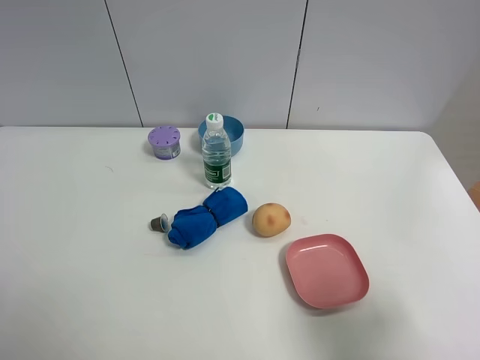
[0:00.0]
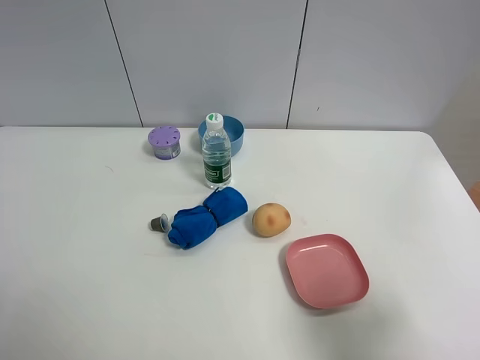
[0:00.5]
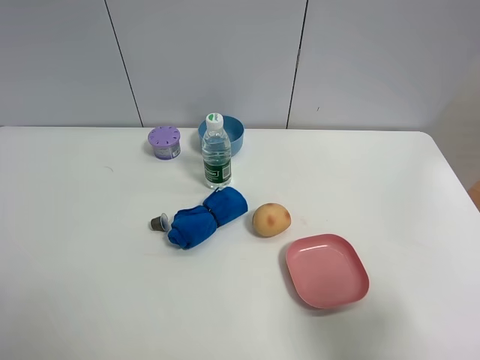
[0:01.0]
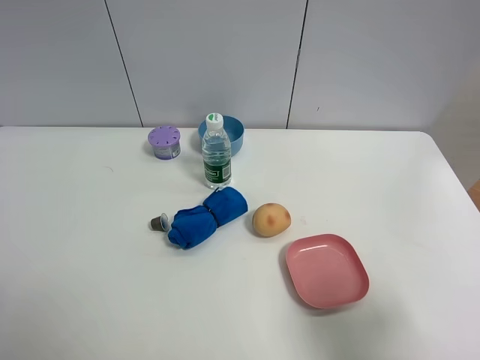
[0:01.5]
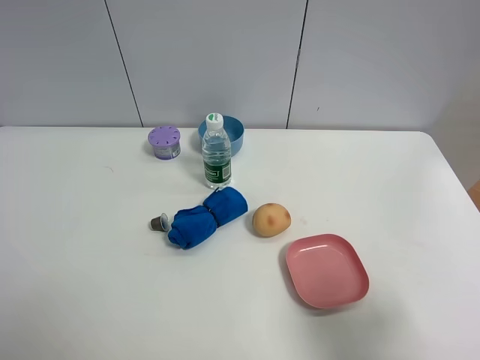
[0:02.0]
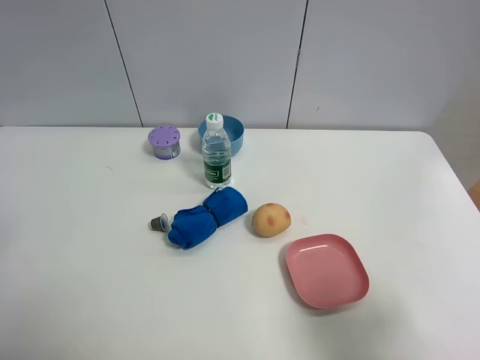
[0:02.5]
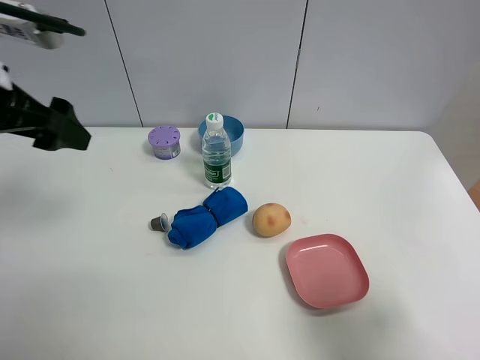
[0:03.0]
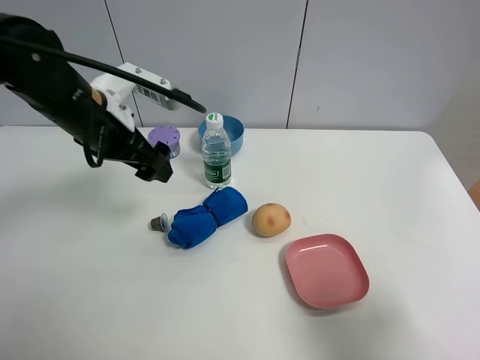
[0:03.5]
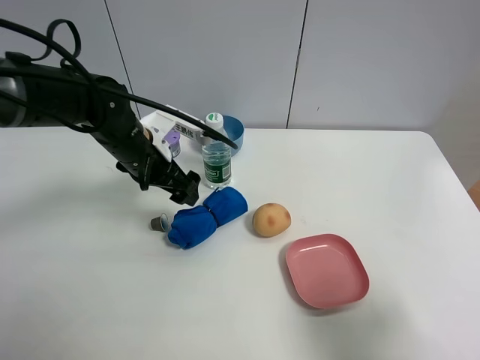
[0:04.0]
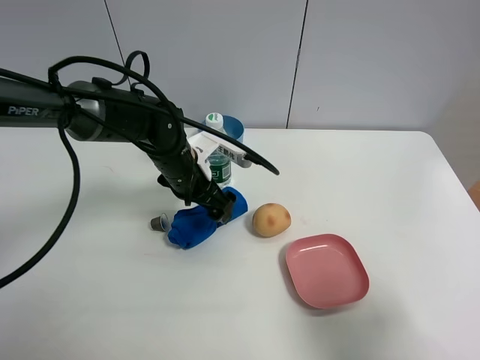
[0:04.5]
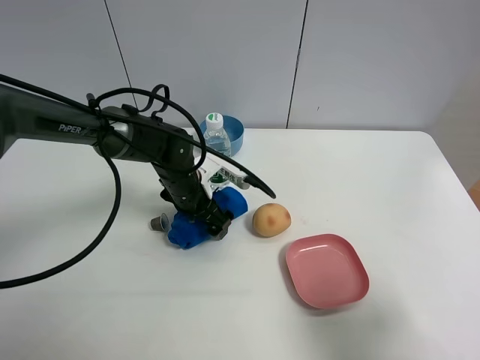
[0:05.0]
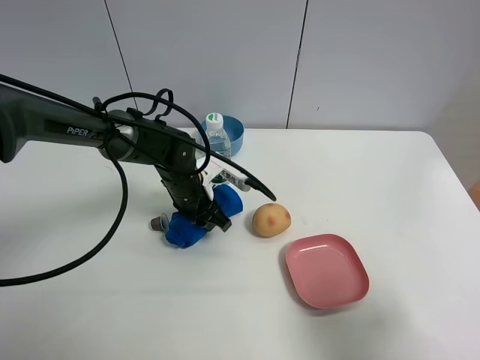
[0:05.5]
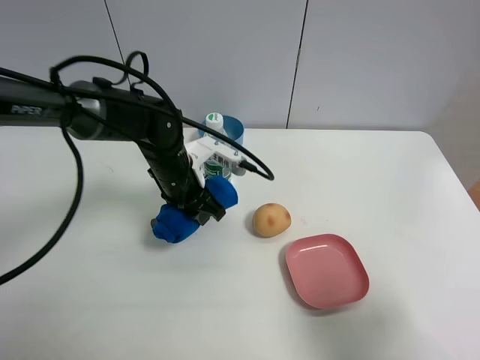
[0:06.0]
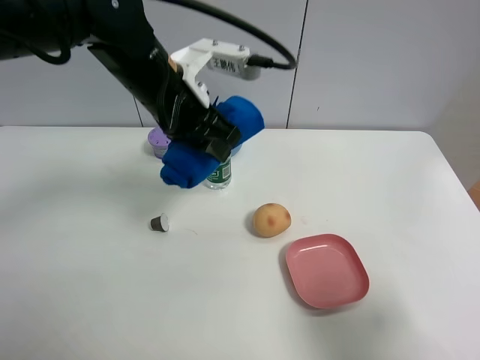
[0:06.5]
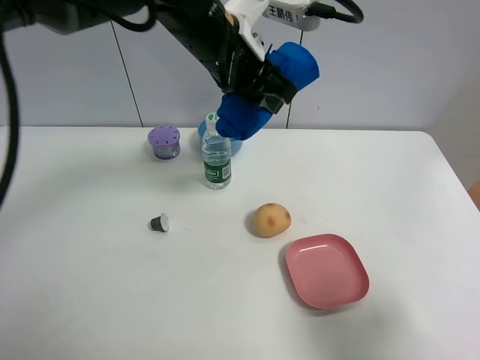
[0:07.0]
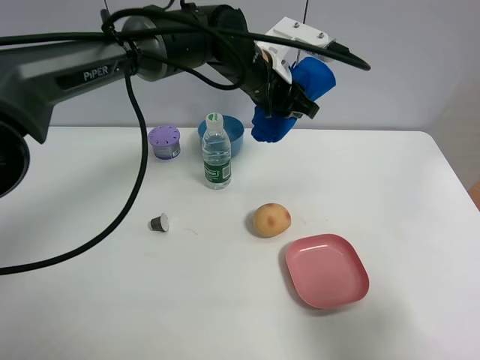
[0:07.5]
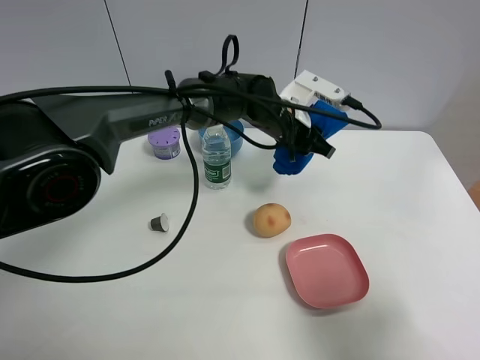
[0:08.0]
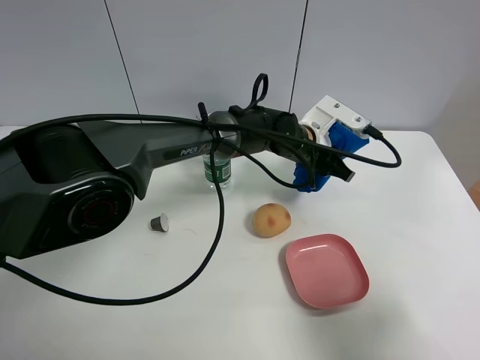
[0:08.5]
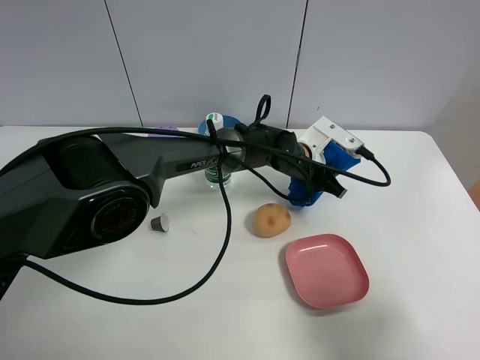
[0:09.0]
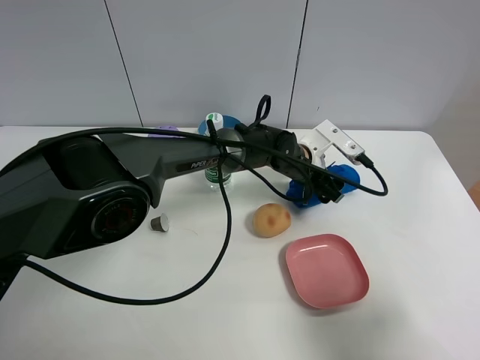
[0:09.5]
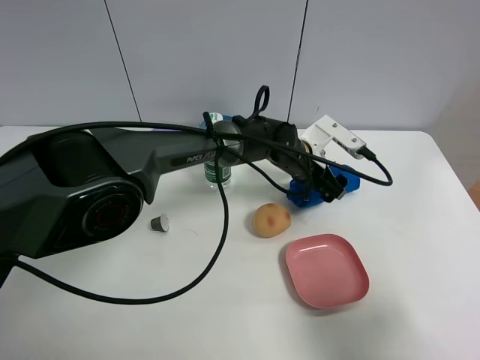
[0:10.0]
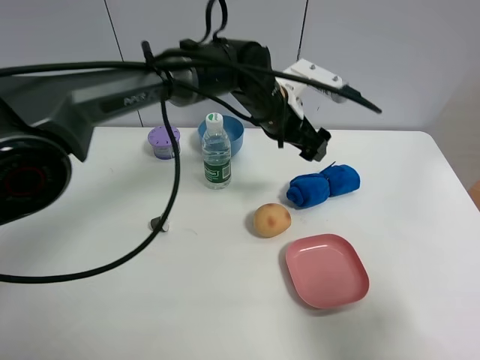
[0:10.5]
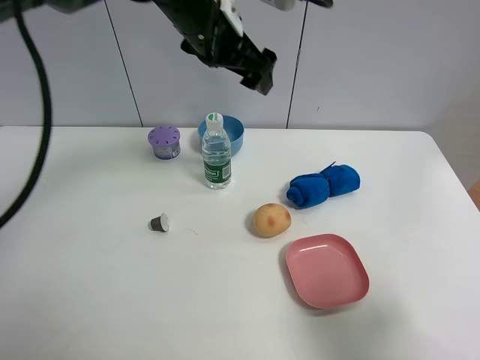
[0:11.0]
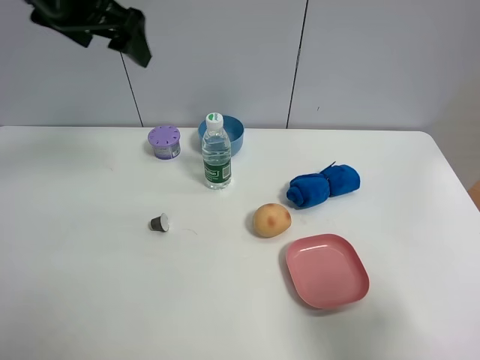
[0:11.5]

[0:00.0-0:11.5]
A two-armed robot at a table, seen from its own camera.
Task of the whole recording: the gripper move the object.
Step, 0:00.0 to 0:05.5: Grasp the blue towel with the left gripper.
Step, 0:06.0 to 0:10.0: Place the blue towel on the table with the left gripper.
0:02.0 to 0:04.0: The left gripper travels forward, to the right and downward by some 40 cm.
0:04.0 to 0:06.0: The left gripper goes downward and returns, approximately 10 cm each way, and closes its fingers.
0:06.0 to 0:07.5: The left gripper shifts roughly 15 cm to the right, upward and forward.
0:07.5 to 0:09.5: The left gripper moves downward and to the right, about 15 cm, and opens its fingers.
0:09.5 to 0:11.5: The left gripper heads to the left and upward, covering some 40 cm.

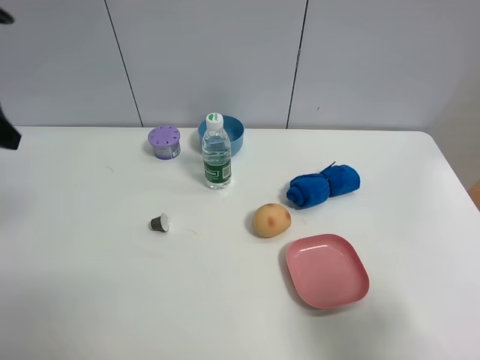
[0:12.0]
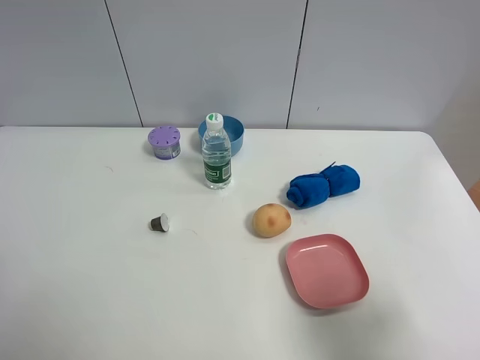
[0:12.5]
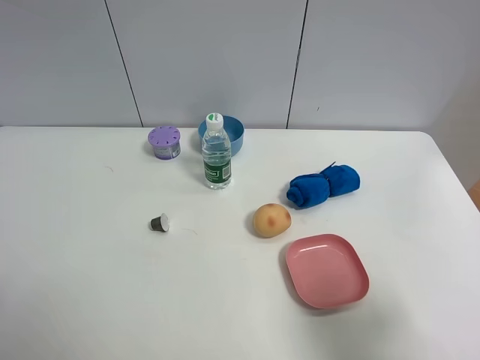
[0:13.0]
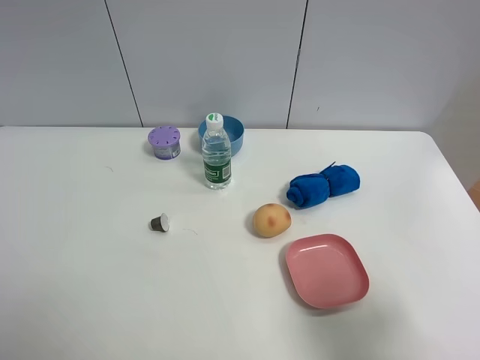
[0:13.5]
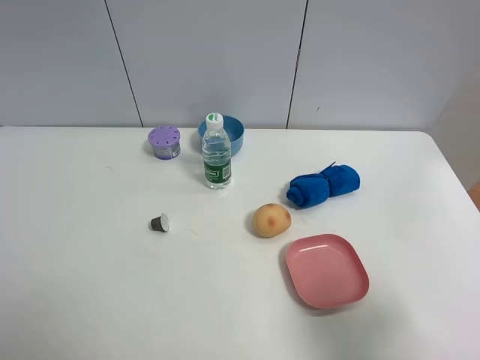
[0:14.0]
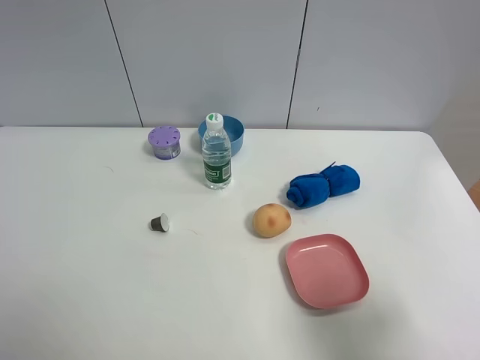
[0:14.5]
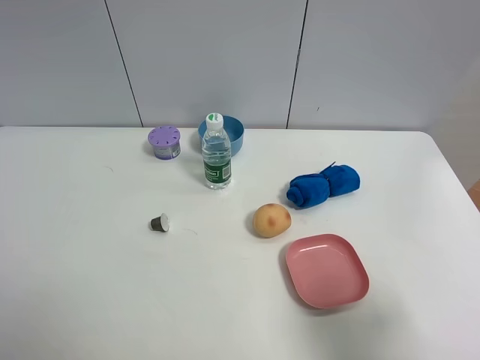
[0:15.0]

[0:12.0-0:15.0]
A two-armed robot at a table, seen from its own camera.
Task of the whole recording: the gripper move the object.
0:13.5 to 0:15.0: The two grippers keep their place.

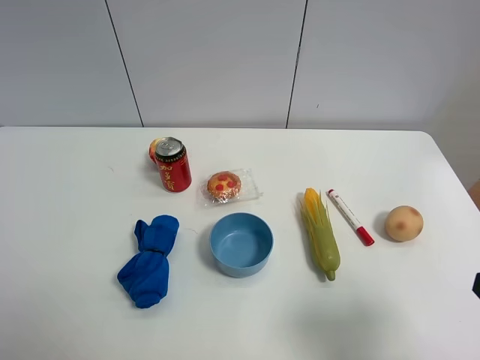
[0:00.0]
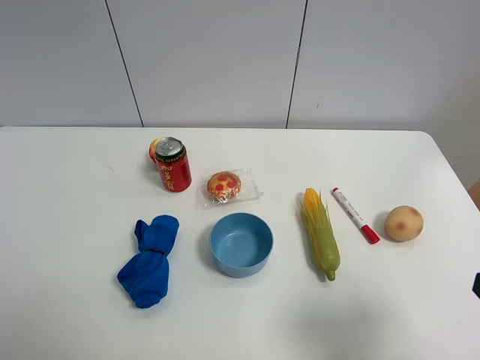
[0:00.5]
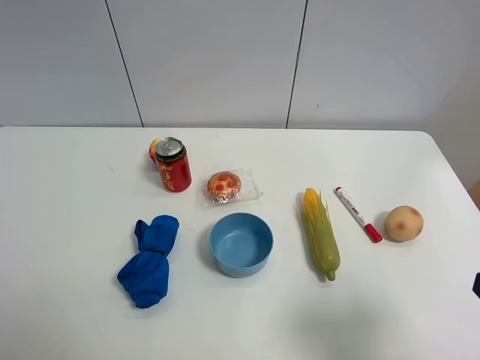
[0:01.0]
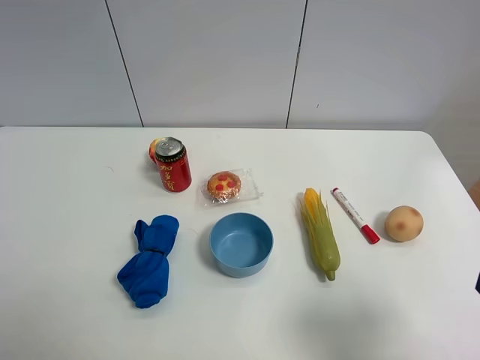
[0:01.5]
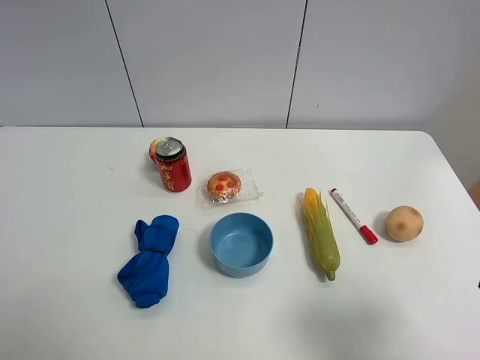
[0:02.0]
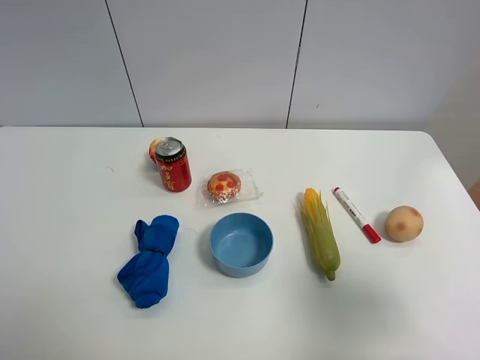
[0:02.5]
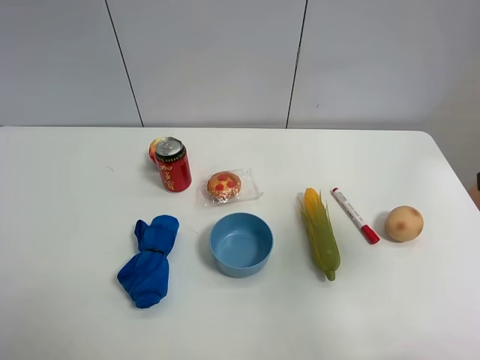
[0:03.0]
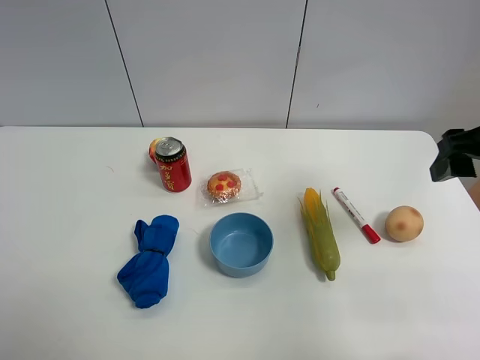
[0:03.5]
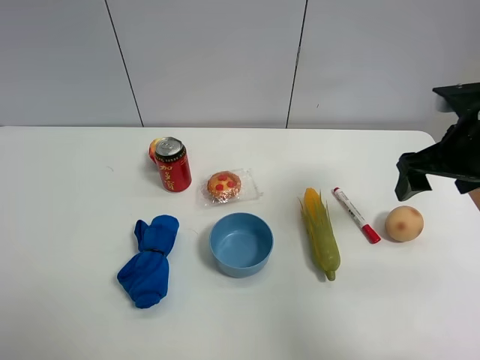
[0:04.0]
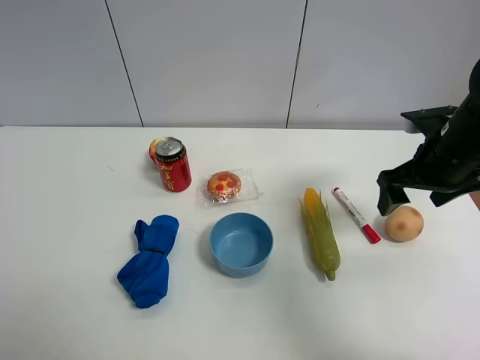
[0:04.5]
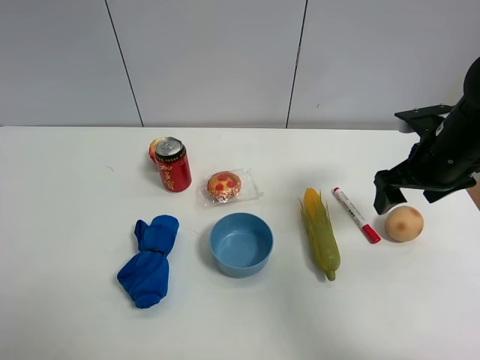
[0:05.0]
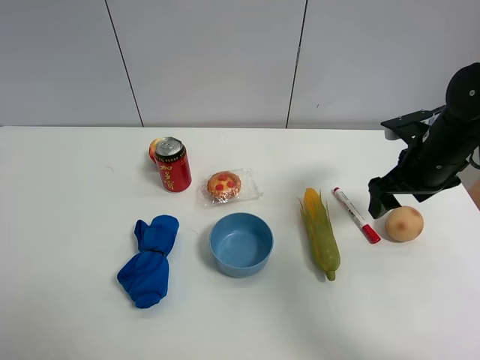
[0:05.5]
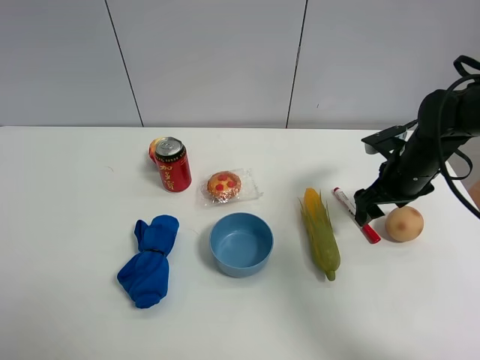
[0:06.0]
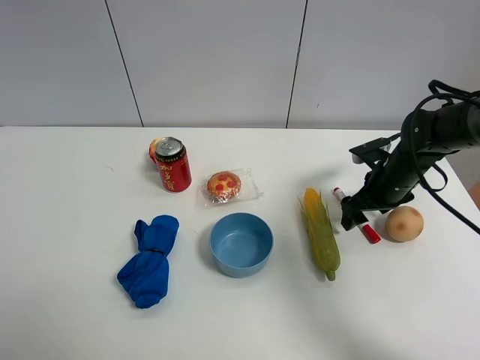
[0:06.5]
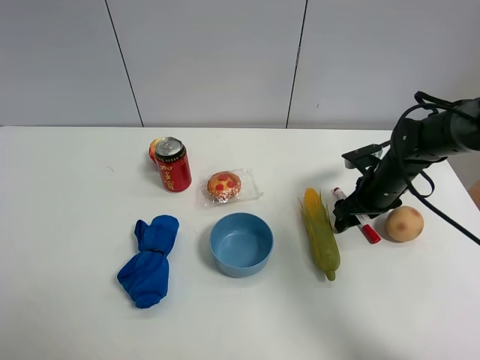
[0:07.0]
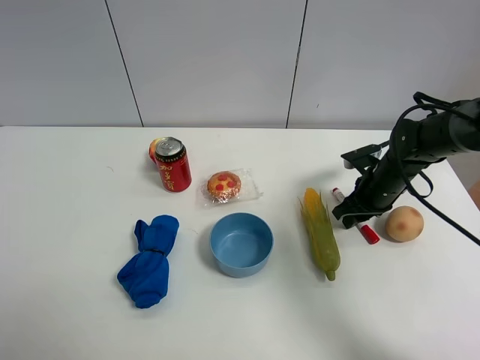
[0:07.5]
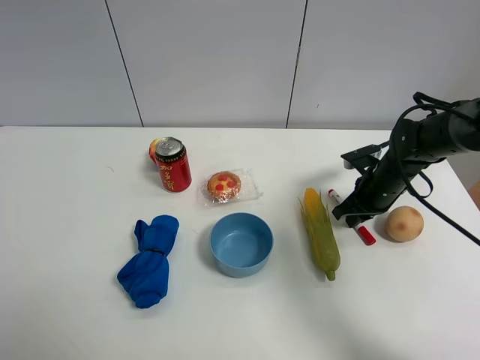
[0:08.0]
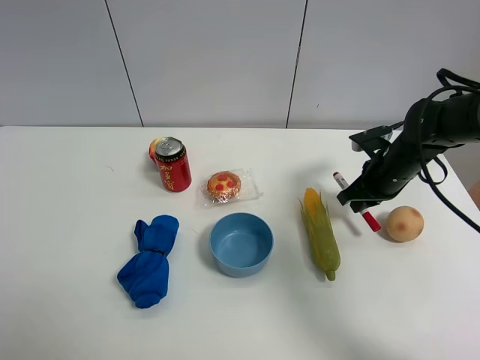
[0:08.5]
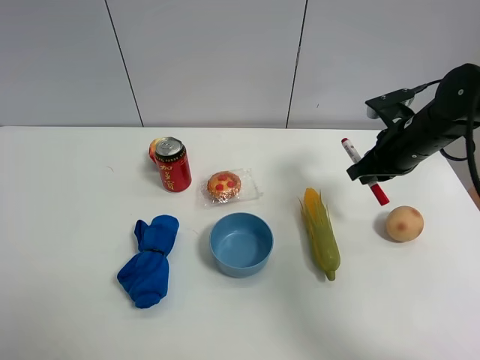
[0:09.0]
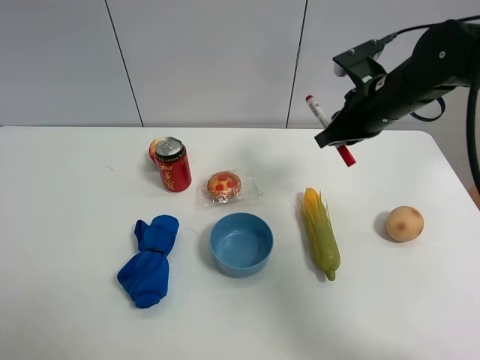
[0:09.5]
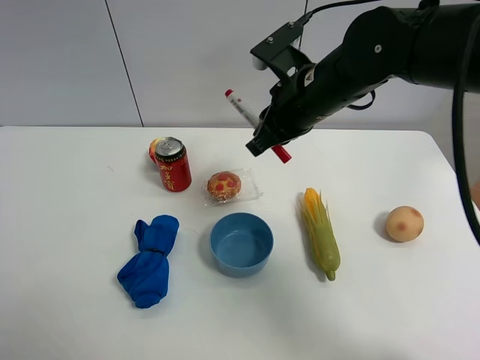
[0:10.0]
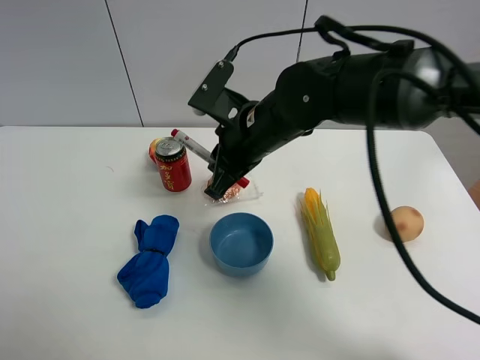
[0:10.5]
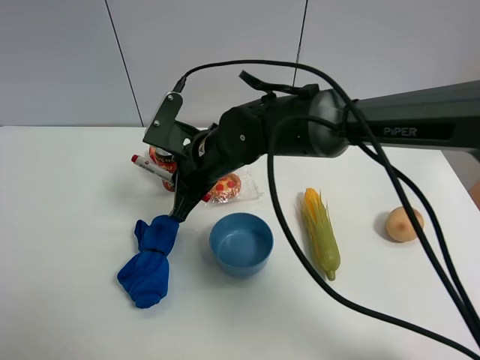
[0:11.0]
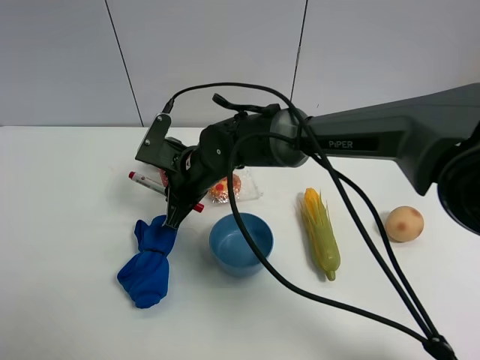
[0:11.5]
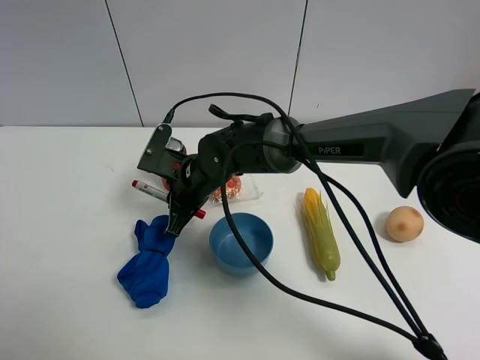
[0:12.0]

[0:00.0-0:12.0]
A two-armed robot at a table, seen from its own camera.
Task of the whole recording: the gripper move the object.
Step, 0:00.0 to 0:07.5: Grasp the red marker pen with the right gripper.
0:00.0 to 0:02.0: The two grippers keep their place.
0:02.0 to 0:04.0: The right gripper goes about 25 cm forward.
0:04.0 to 0:06.0: The right gripper travels downward and forward by approximately 15 cm.
0:06.0 to 0:08.0: The right gripper goes approximately 5 cm downward, and closes its fingers.
0:08.0 to 0:10.0: The right gripper moves upward and to the left, about 25 cm.
0:10.0 to 0:12.0: The right gripper heads downward and to the left, covering approximately 20 cm.
